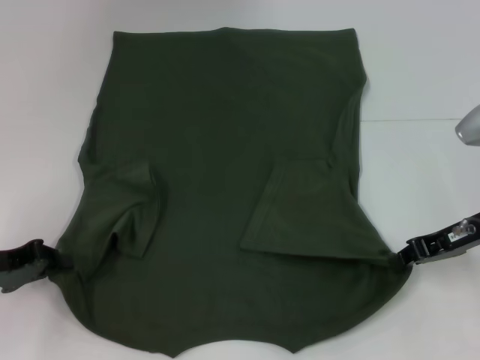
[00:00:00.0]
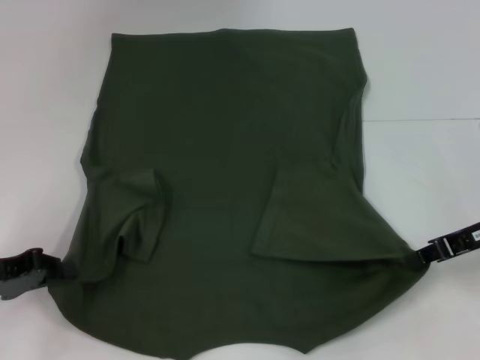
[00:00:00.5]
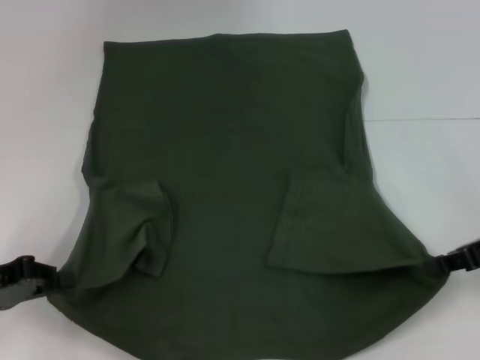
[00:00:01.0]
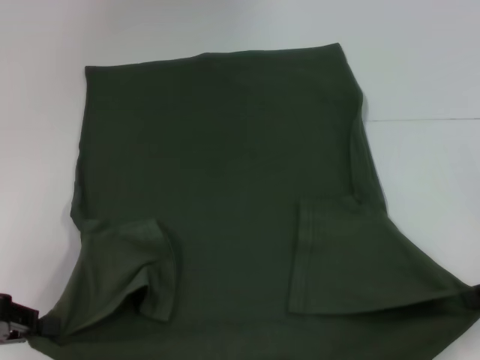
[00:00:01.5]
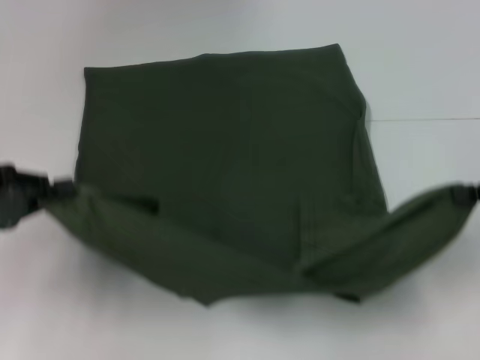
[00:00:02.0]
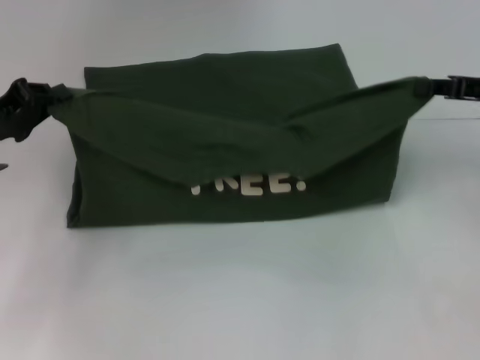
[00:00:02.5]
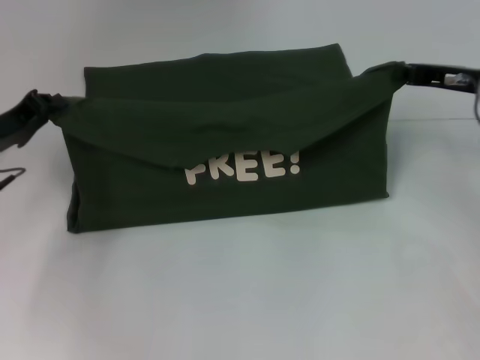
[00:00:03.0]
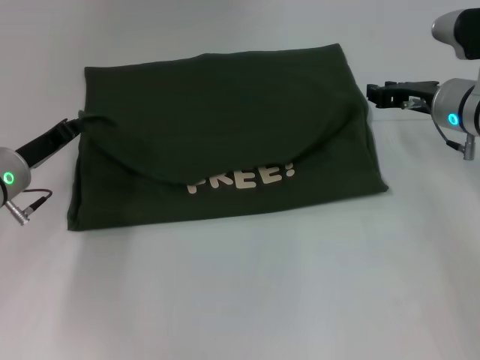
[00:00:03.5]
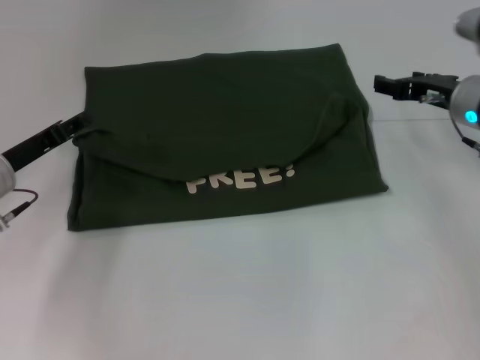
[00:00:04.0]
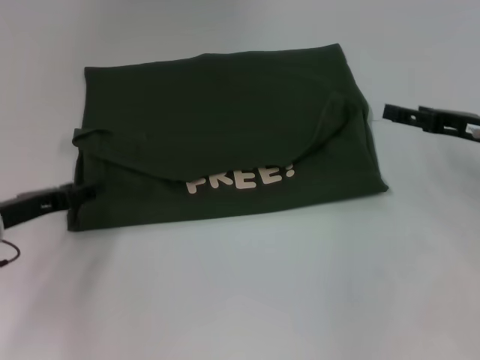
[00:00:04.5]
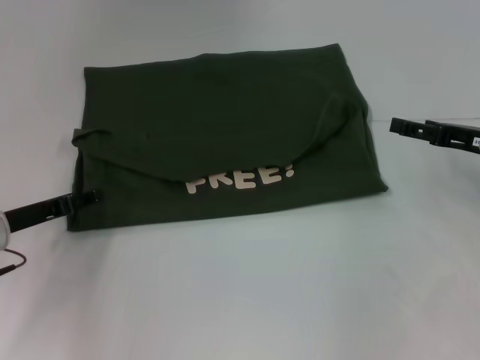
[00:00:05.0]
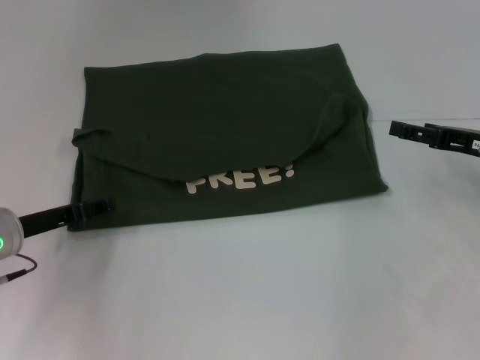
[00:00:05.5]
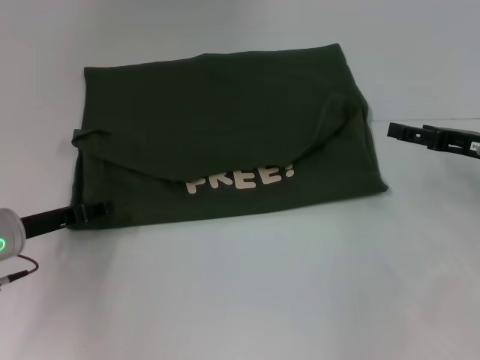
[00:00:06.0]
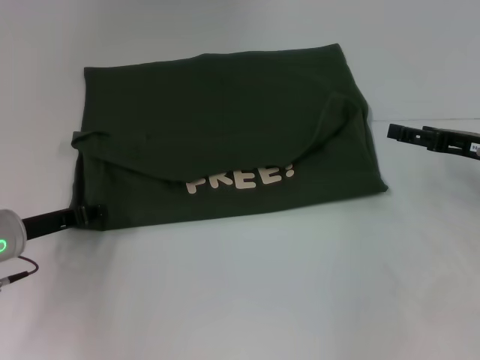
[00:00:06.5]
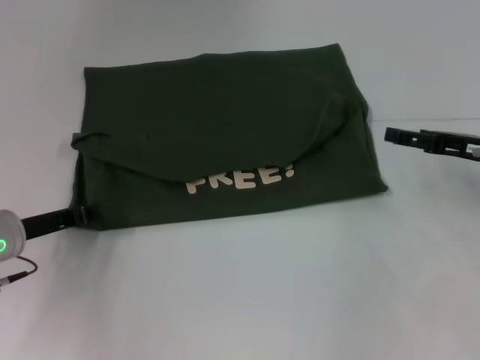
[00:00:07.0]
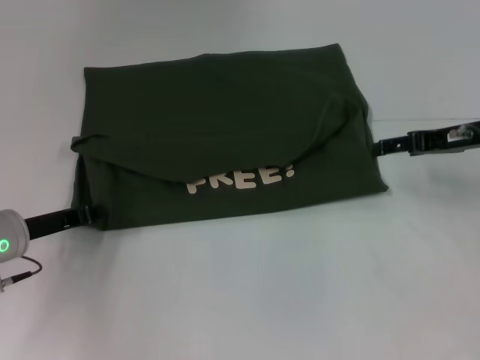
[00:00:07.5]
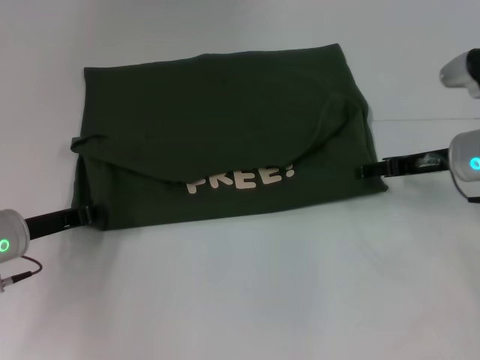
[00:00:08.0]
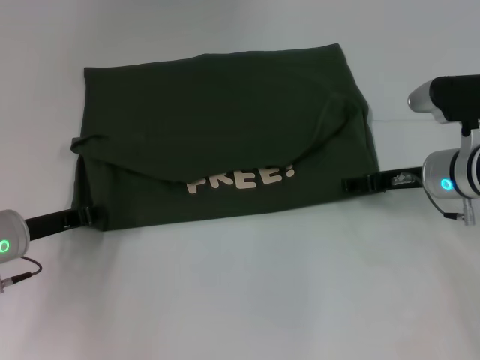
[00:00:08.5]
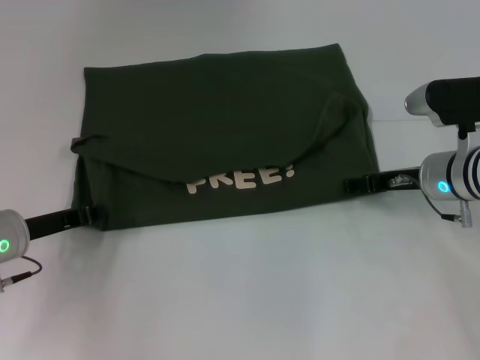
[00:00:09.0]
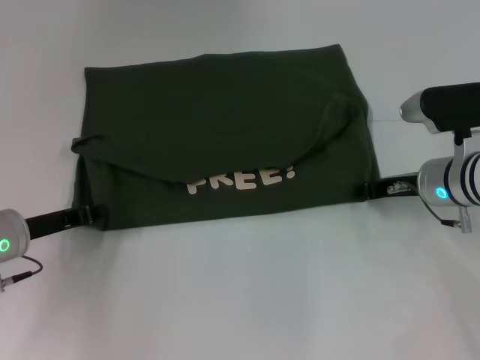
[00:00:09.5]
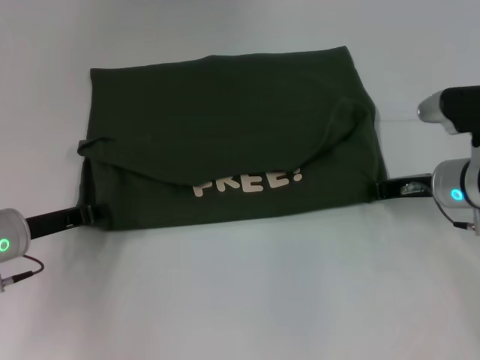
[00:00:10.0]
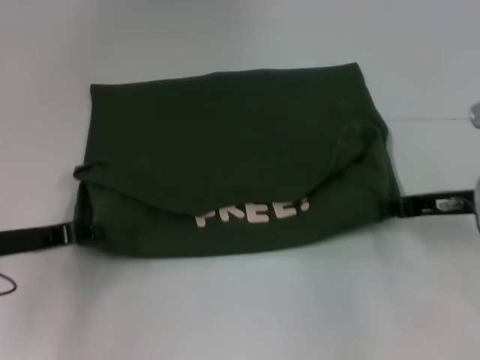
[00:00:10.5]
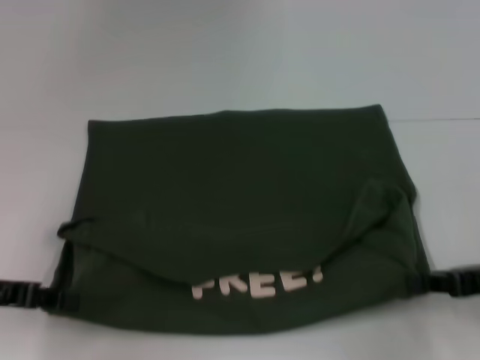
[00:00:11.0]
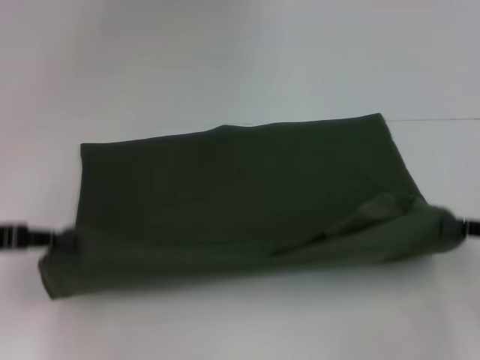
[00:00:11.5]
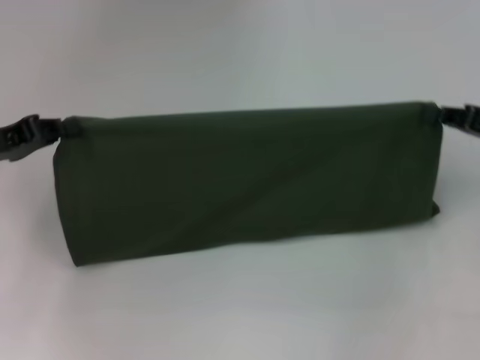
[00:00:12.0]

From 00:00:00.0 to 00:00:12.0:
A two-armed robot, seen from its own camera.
Step, from 00:00:00.5 to 00:00:04.0: Fold the clothes with your left hand.
Step, from 00:00:00.5 to 00:00:04.0: Fold the clothes with your right hand.
Step, from 00:00:04.5 to 00:00:11.0: Pull the clothes with your left hand.
Step, from 00:00:04.5 to 00:00:11.0: Pull the clothes with your right hand.
From 00:00:00.0 to 00:00:02.0: The left gripper goes some 5 cm upward; the right gripper goes about 10 cm to the right and upward.
From 00:00:02.0 to 00:00:04.0: The right gripper travels forward and to the left by roughly 15 cm, and opens; the left gripper moves forward, downward and to the right, approximately 10 cm, and opens up.
From 00:00:04.0 to 00:00:06.0: The right gripper shifts some 10 cm backward and to the right, and opens up.
From 00:00:06.0 to 00:00:08.0: The left gripper closes up; the right gripper shifts about 5 cm to the left.
From 00:00:08.0 to 00:00:10.0: The right gripper closes.
From 00:00:10.0 to 00:00:12.0: The right gripper is displaced to the right and upward by about 10 cm, and moves approximately 15 cm backward and comes back. Meanwhile the left gripper goes approximately 10 cm upward.

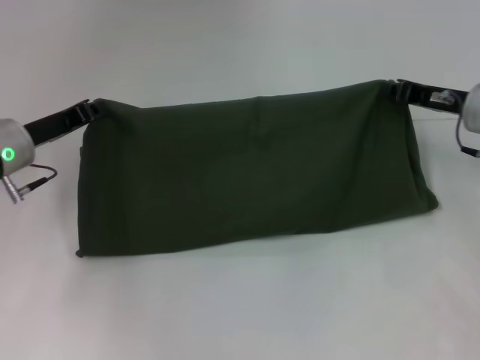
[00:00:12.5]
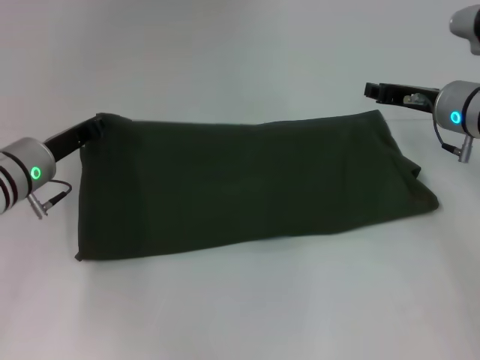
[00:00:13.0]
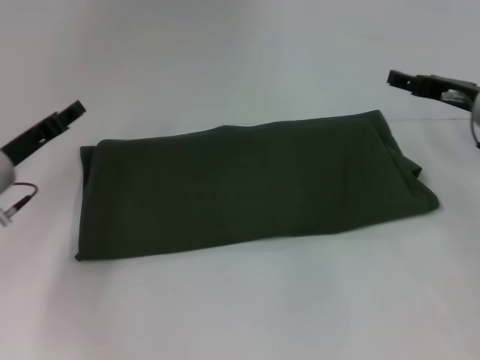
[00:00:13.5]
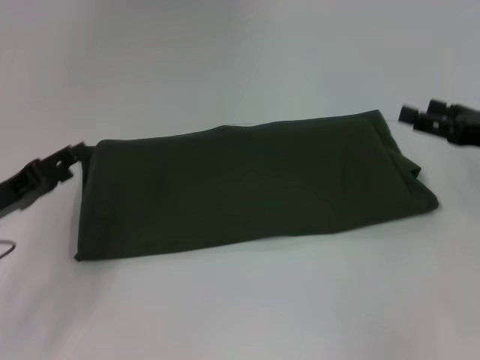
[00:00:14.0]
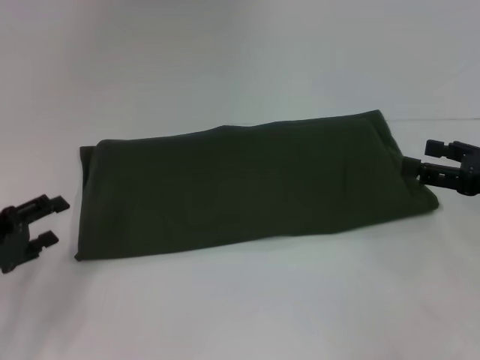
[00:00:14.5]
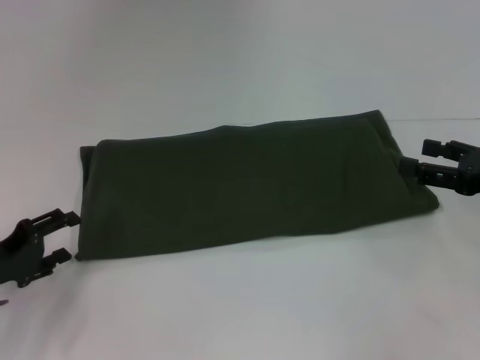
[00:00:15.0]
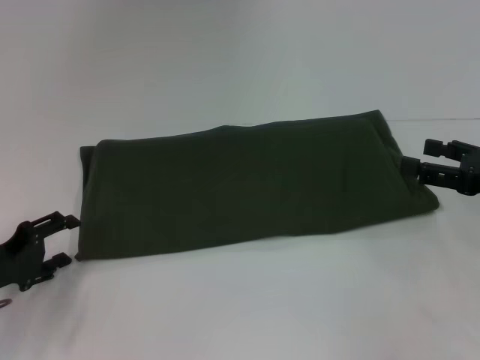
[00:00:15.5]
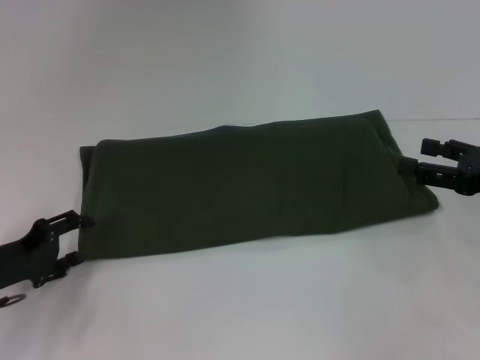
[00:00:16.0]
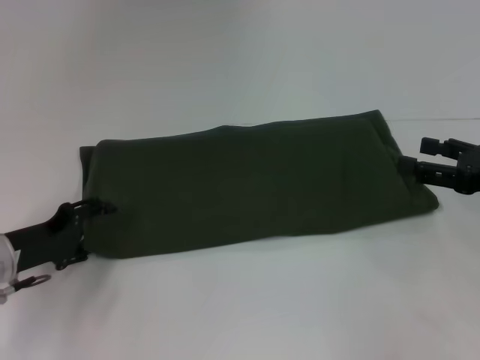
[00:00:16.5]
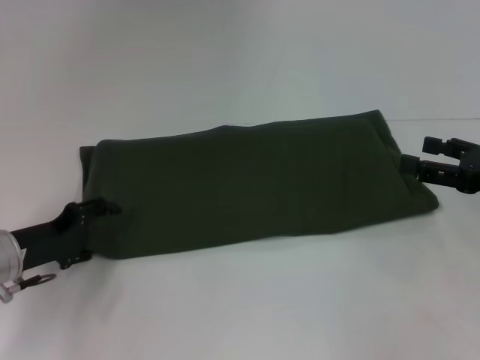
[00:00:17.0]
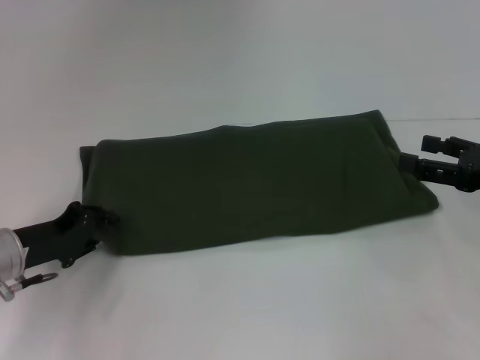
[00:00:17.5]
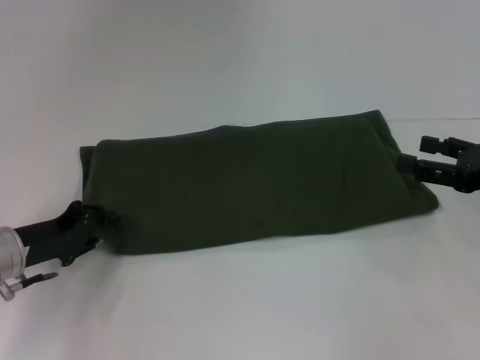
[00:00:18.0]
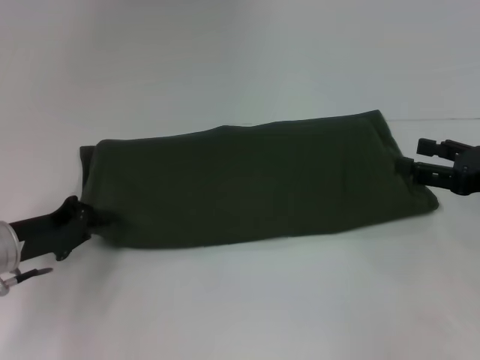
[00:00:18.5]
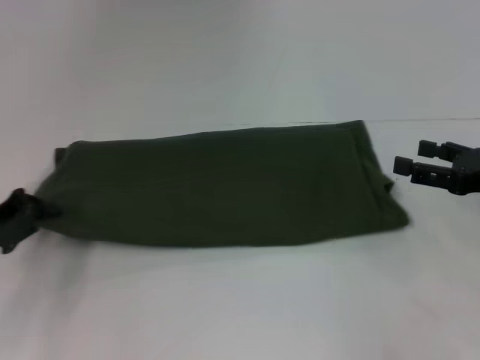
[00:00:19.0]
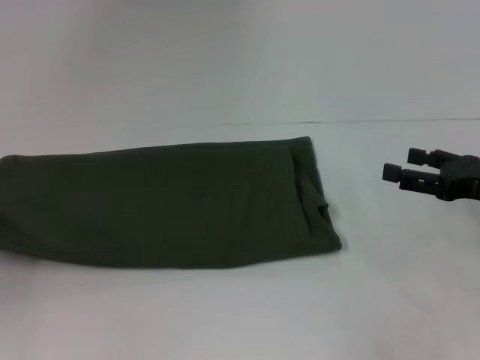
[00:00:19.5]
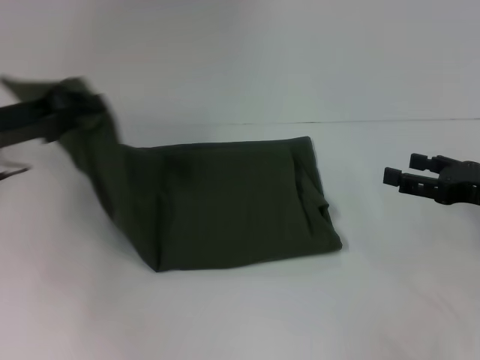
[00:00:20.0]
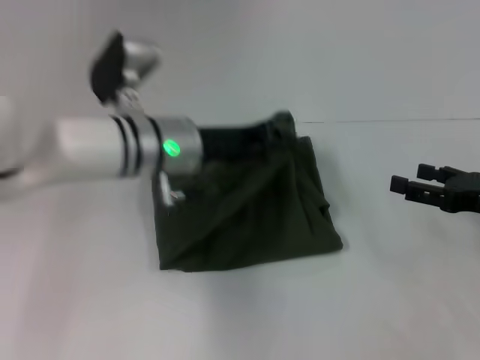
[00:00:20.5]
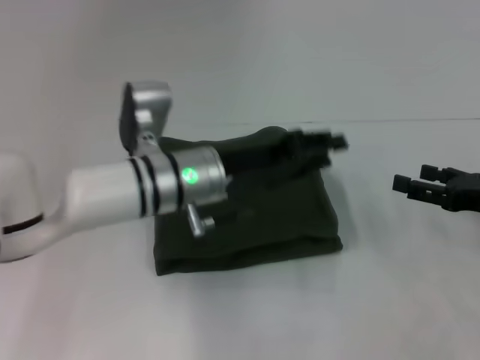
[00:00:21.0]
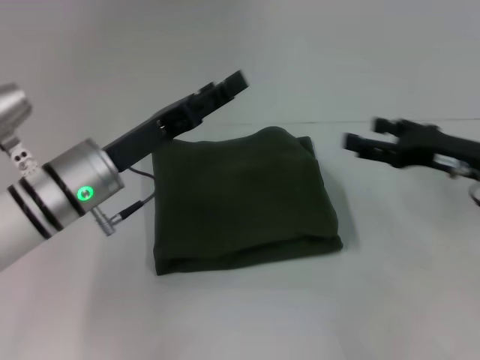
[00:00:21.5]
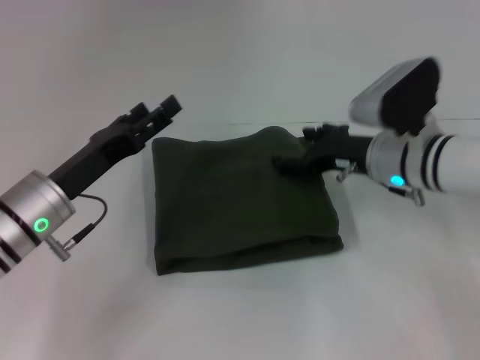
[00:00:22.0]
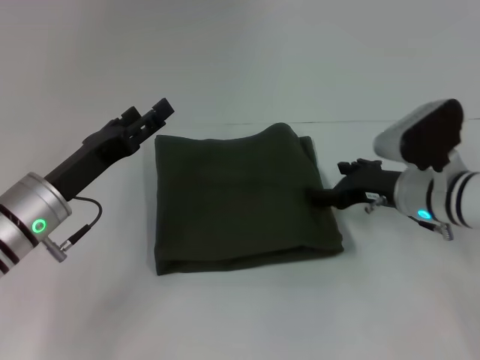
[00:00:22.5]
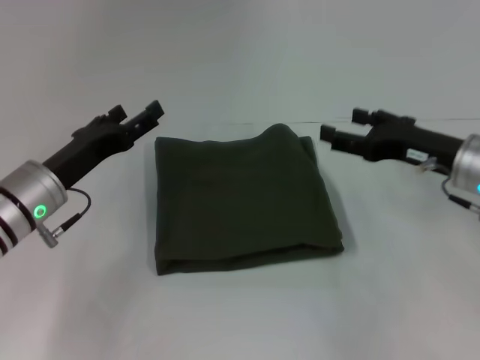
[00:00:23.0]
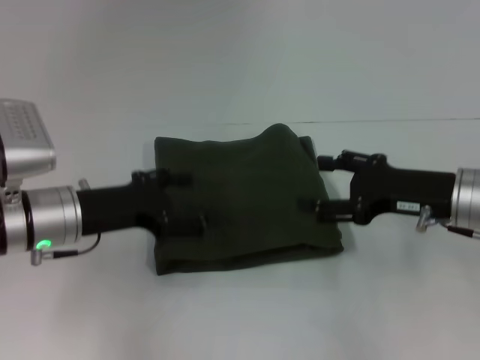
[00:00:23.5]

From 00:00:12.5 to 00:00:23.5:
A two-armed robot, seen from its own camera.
Step, from 00:00:12.5 to 00:00:21.0: Fold the clothes with your left hand.
From 00:00:12.5 to 00:00:14.5: The right gripper travels backward and to the right by some 15 cm, and opens, while the left gripper travels backward and to the left by some 15 cm, and opens.
From 00:00:14.5 to 00:00:16.0: The grippers move only a little.
From 00:00:16.0 to 00:00:18.0: The left gripper closes its fingers.
From 00:00:18.0 to 00:00:20.0: The left gripper is displaced upward by roughly 10 cm, and travels to the left and back again, some 10 cm each way.
From 00:00:20.0 to 00:00:21.5: The left gripper shifts some 15 cm to the right, and opens, while the right gripper changes place by roughly 5 cm.
From 00:00:21.5 to 00:00:23.5: The left gripper changes place by approximately 5 cm.

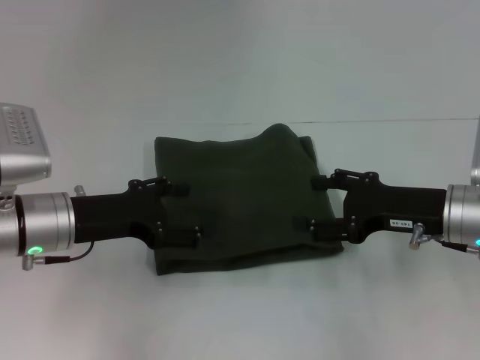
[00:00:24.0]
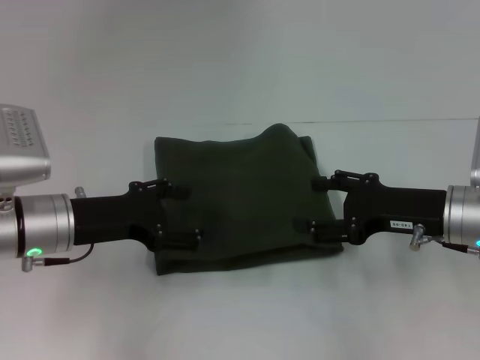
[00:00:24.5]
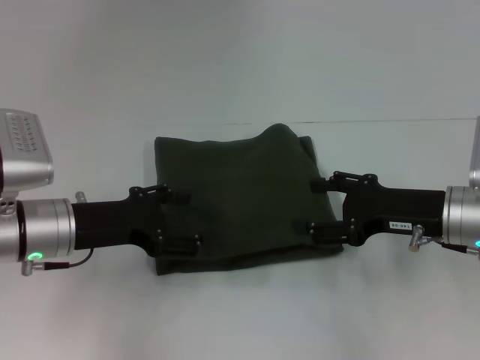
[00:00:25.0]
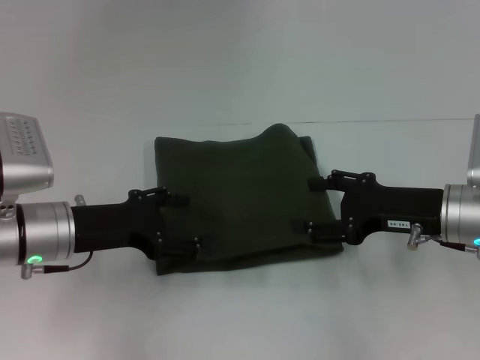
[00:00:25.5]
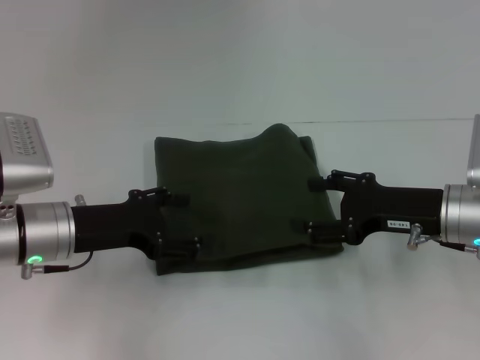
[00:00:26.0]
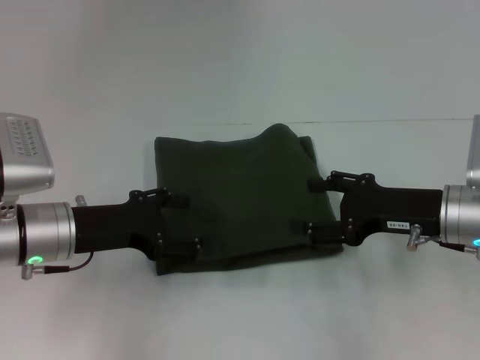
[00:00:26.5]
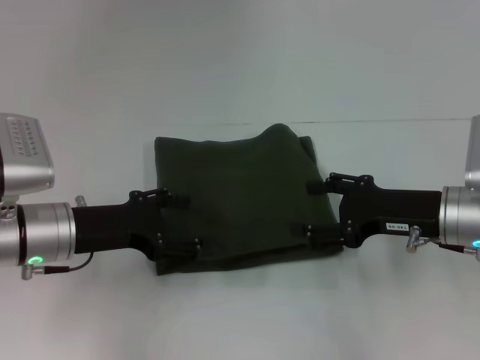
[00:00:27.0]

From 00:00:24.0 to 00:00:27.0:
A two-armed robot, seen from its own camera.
From 00:00:24.0 to 00:00:27.0: The two grippers keep their place.
